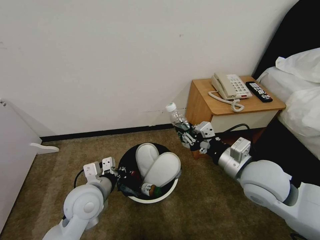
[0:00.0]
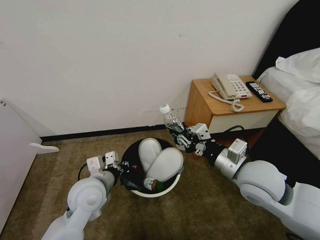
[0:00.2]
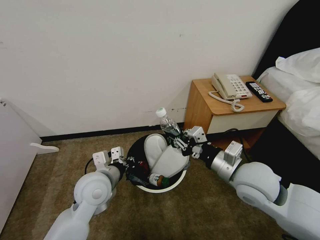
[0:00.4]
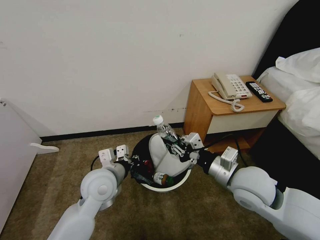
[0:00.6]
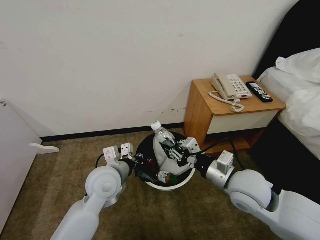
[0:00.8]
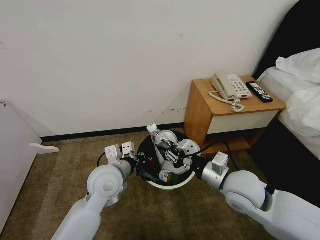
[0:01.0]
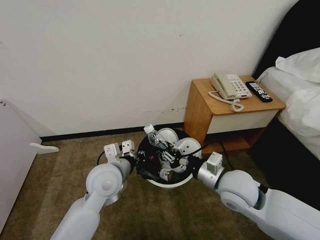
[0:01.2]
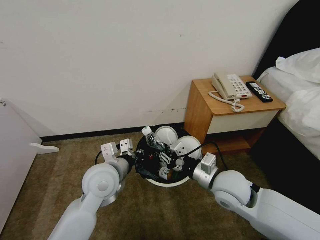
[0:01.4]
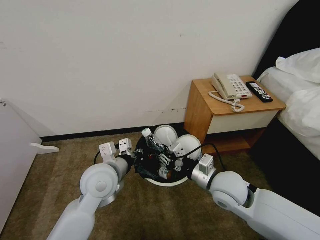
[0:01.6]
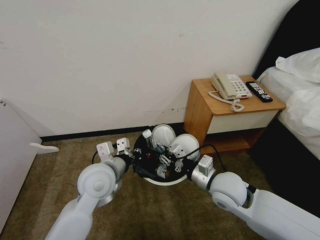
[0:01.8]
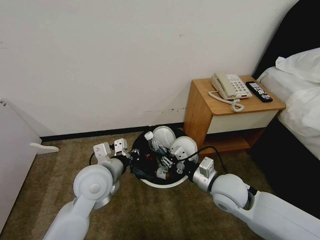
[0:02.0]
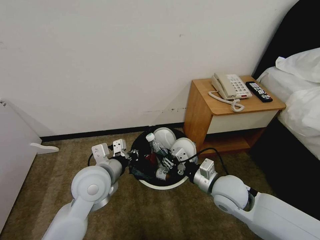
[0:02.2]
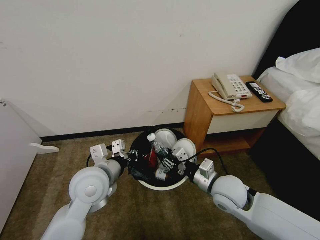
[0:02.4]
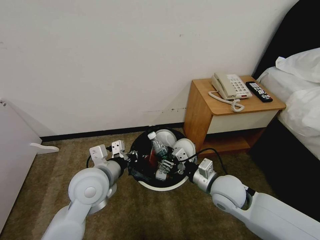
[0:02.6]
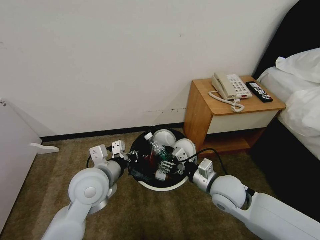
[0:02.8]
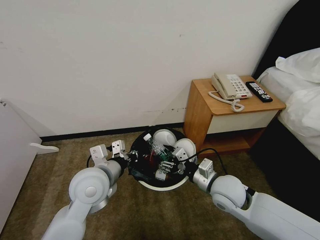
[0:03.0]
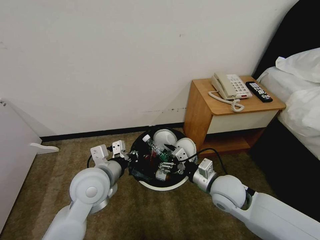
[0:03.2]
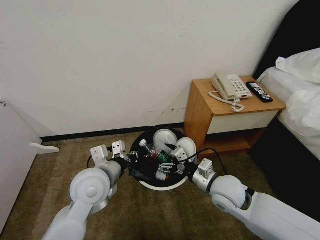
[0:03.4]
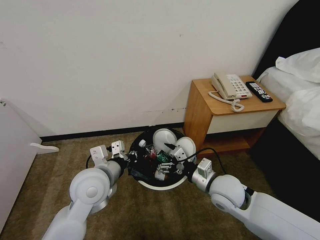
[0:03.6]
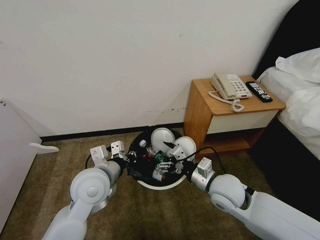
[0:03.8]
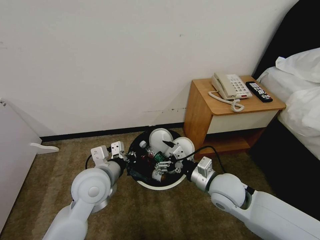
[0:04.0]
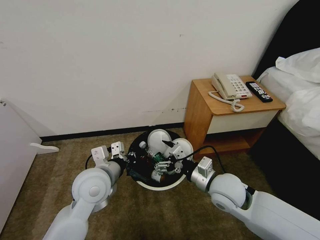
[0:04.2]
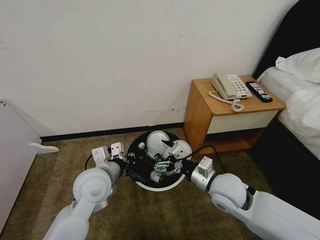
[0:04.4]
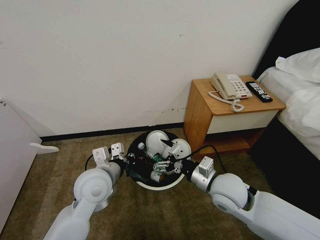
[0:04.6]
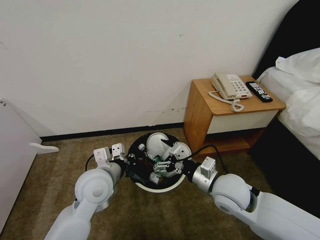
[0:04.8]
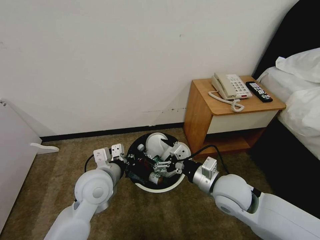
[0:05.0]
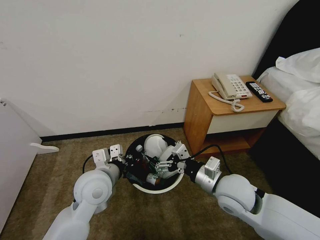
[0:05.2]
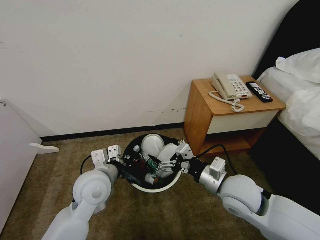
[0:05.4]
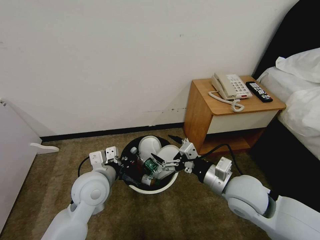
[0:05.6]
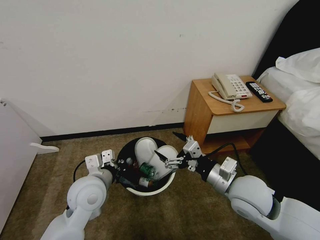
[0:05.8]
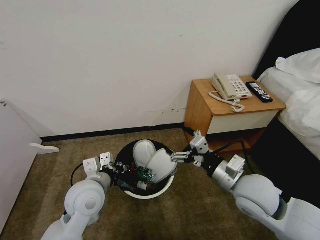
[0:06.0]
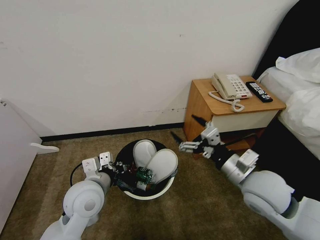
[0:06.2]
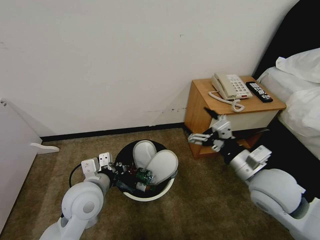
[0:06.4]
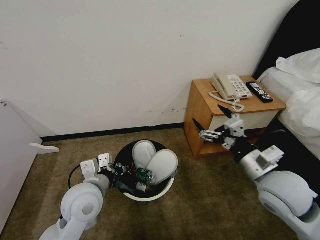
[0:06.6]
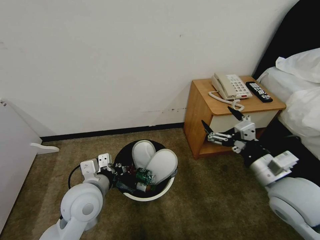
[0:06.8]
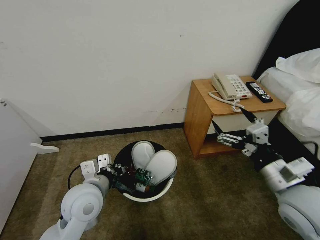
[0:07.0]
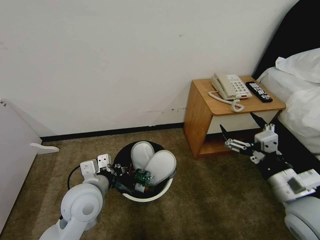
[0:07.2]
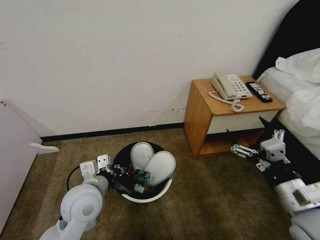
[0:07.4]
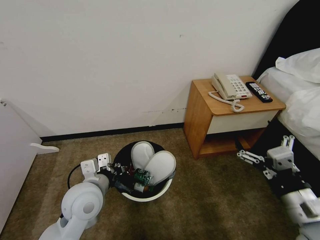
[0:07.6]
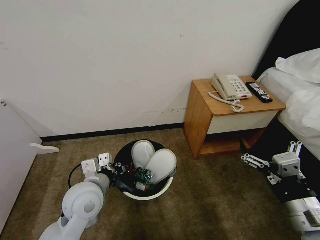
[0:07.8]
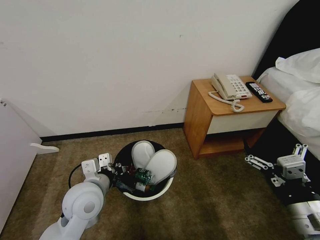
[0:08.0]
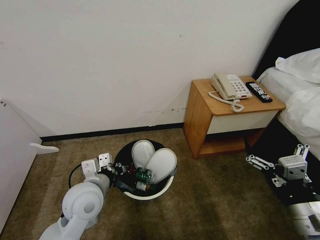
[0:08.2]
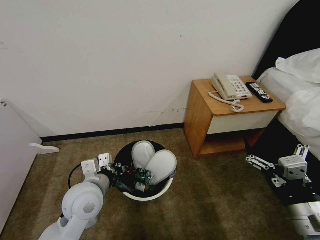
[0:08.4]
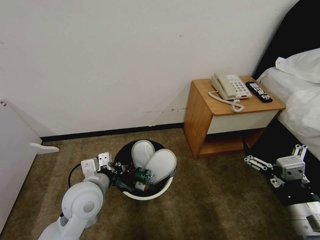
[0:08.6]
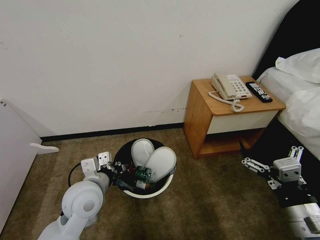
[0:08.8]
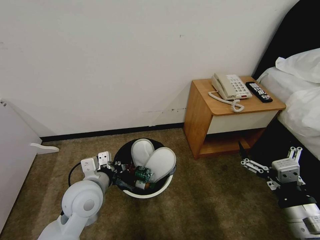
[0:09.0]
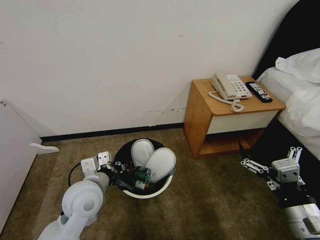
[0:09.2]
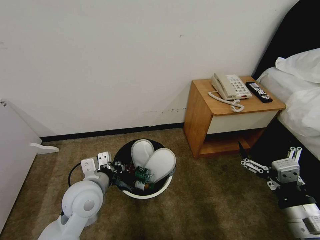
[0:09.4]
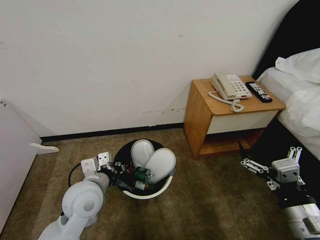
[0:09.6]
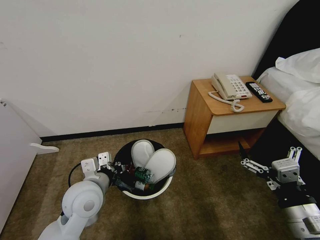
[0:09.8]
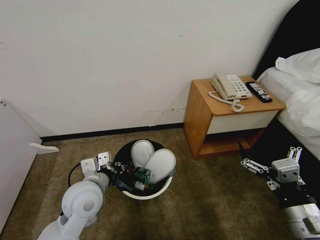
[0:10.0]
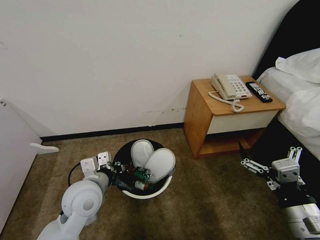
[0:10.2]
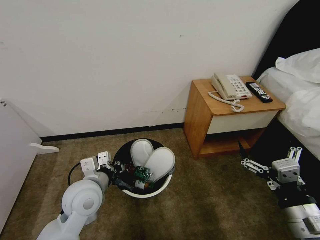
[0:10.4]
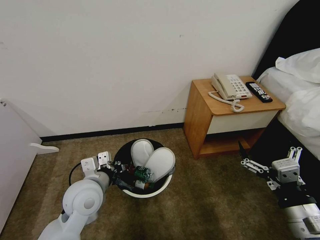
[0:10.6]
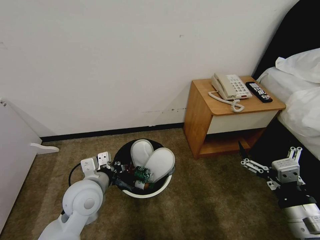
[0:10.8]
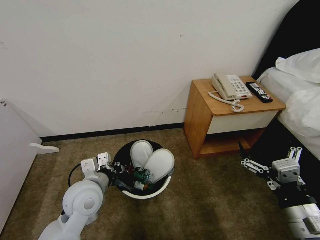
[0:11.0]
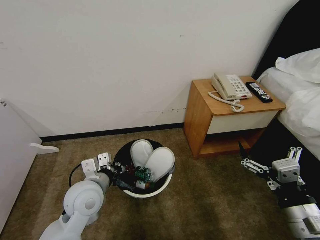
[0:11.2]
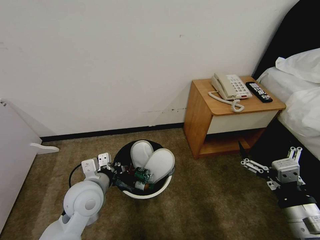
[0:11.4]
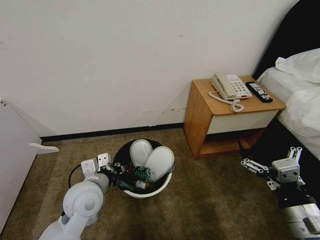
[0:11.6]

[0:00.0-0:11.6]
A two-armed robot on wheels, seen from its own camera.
Task of the whole recording: Pick up the trash bin, then pick up the garbage from the floor and place it into the trash bin.
0:00.0 to 0:01.4: The left gripper ends up some 5 cm from where it was. Meanwhile the right gripper travels downward by some 5 cm.
0:01.4 to 0:02.8: The right gripper opens up.
0:02.8 to 0:04.4: The grippers move only a little.
0:04.4 to 0:05.8: The right gripper moves approximately 5 cm.
0:05.8 to 0:07.2: The right gripper travels to the right and backward by roughly 10 cm.
0:07.2 to 0:08.8: The right gripper is displaced backward by about 5 cm.
0:08.8 to 0:11.6: Both grippers stay about where they are.
